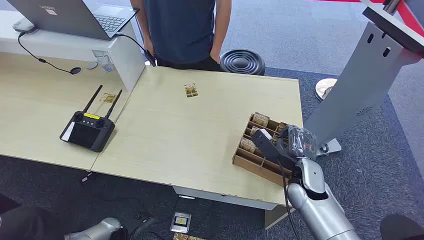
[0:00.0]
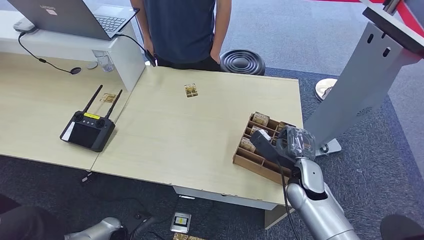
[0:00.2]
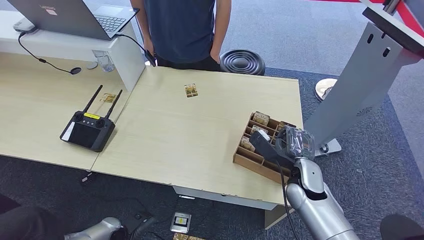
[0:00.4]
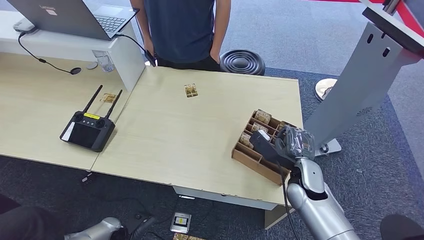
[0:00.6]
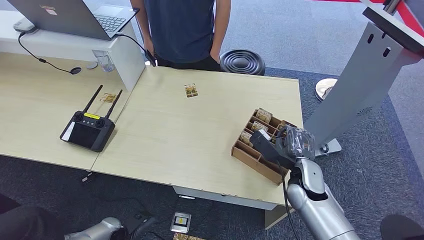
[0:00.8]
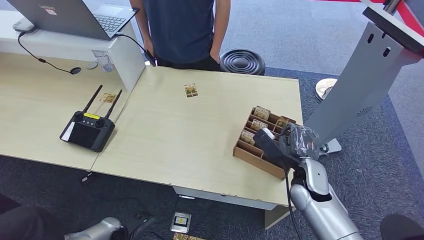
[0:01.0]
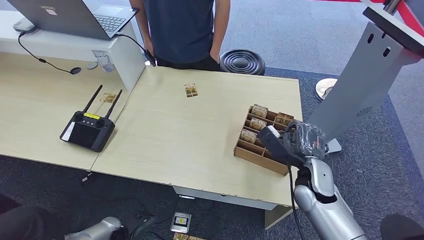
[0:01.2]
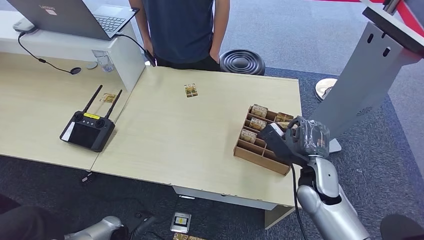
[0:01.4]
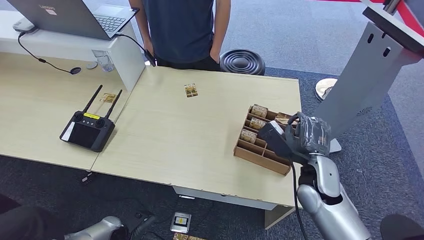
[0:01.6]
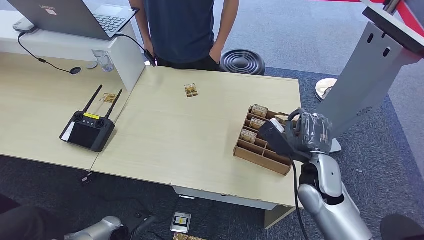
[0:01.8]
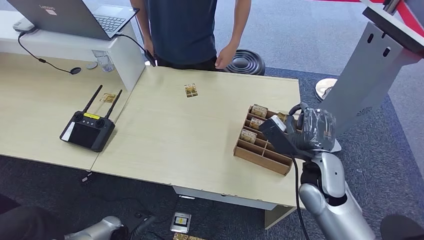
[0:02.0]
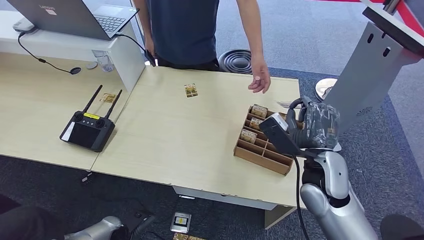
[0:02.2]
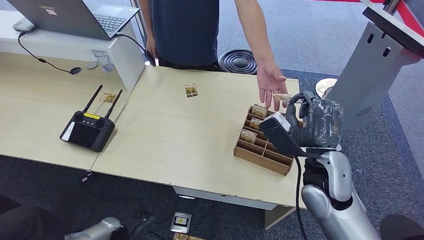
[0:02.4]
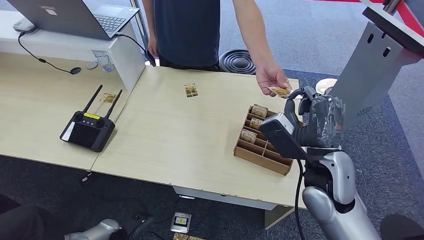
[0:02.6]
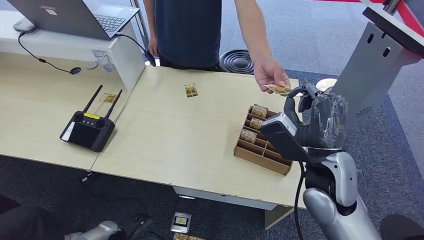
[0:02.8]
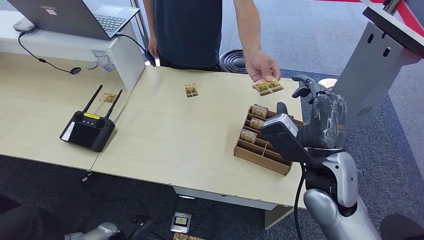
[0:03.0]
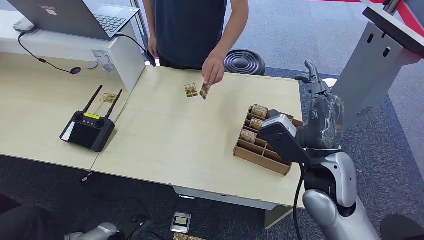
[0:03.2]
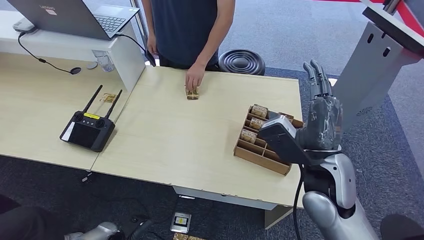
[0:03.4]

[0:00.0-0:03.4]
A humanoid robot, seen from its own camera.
Step, 0:00.0 to 0:01.8: Pick up the key card from the card box.
Step, 0:02.0 to 0:03.4: Hand the key card to the target.
0:01.6 to 0:03.4: The right hand heads upward, covering about 10 cm.

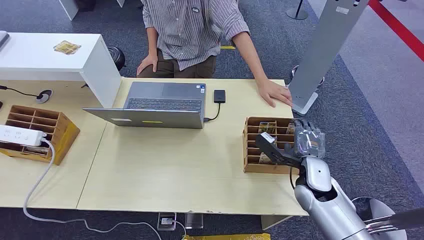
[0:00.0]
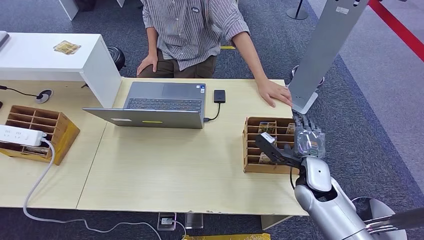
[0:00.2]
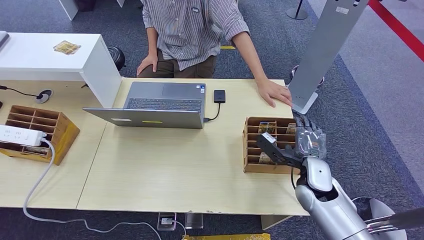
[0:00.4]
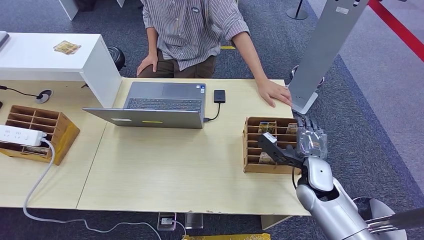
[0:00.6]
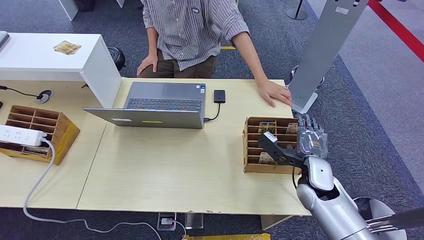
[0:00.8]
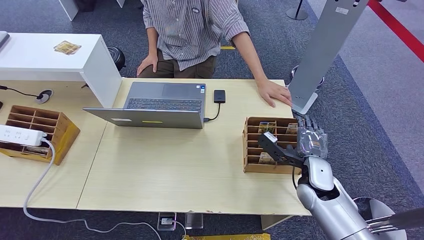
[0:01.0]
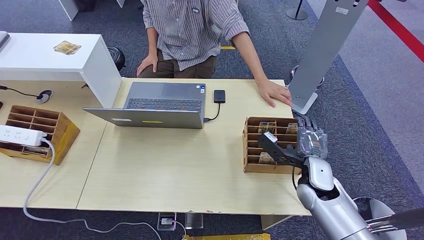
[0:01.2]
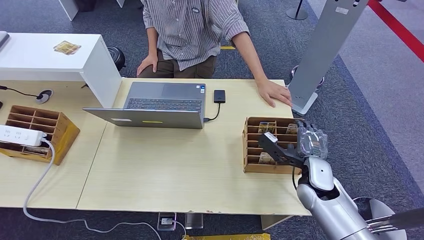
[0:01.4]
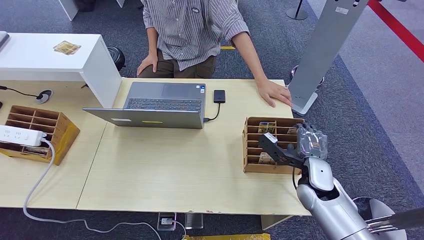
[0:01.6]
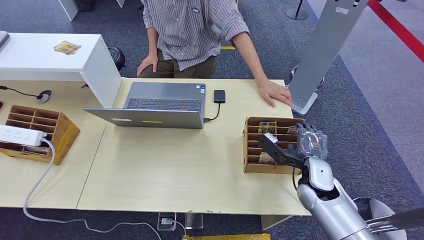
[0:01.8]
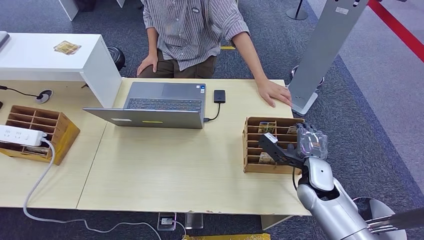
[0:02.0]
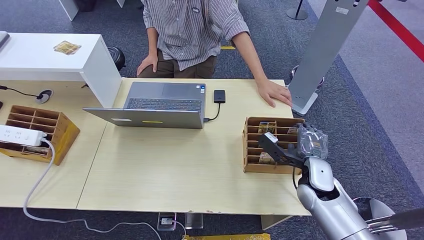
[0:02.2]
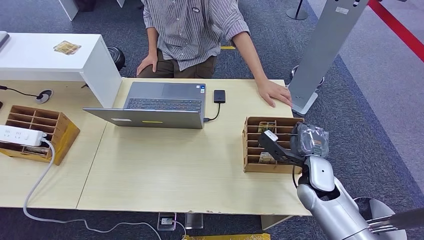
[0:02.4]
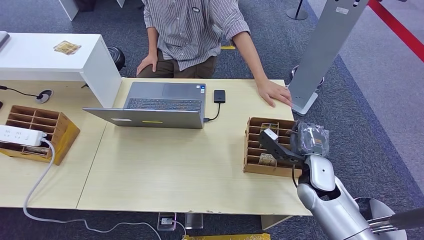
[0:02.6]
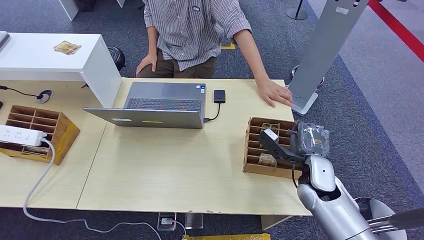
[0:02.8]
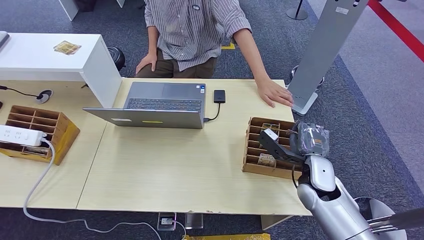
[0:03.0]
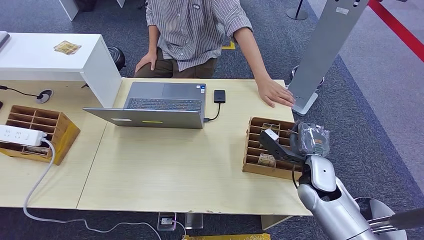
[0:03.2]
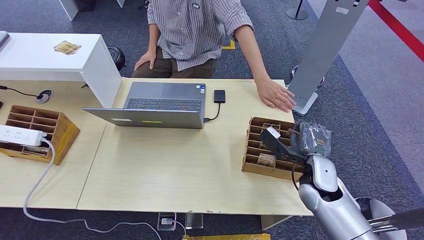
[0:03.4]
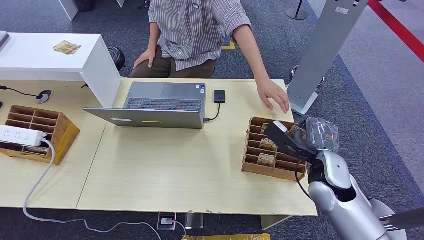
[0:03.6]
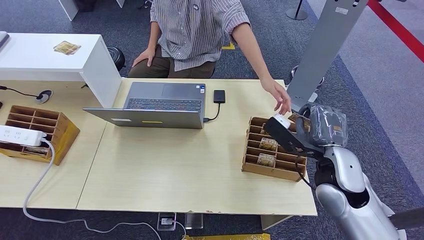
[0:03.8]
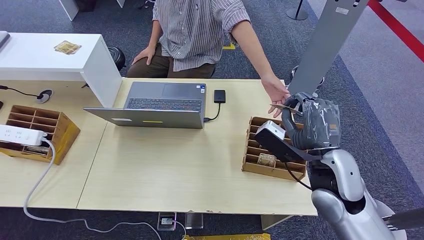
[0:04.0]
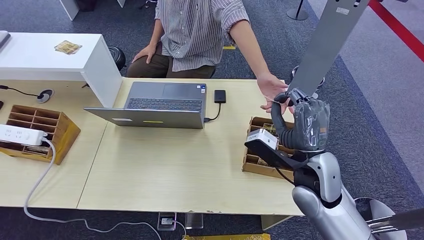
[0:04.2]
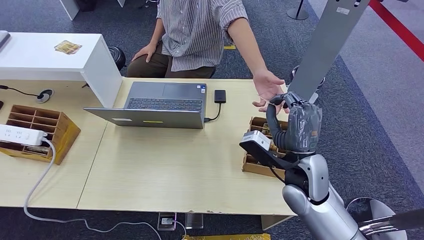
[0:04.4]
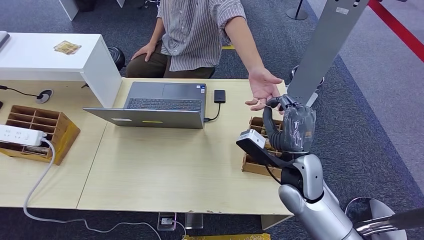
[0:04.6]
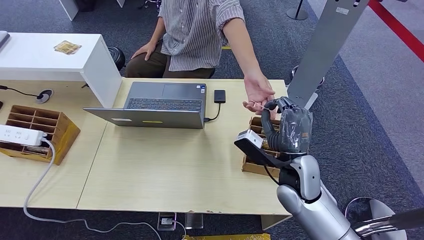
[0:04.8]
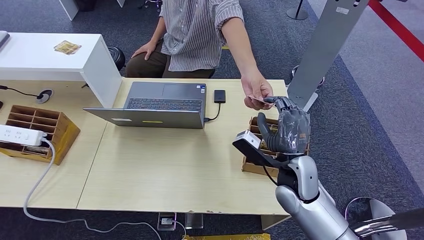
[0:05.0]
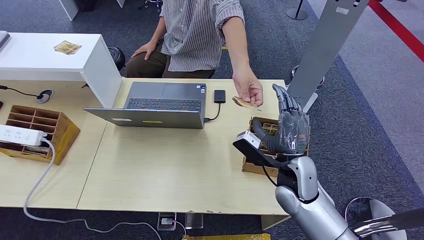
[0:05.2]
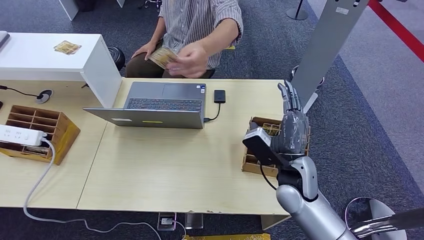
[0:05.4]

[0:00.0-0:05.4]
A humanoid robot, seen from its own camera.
Step, 0:00.0 to 0:03.6: Pick up the key card from the card box.
Step, 0:04.4 to 0:05.4: Hand the key card to the target.
0:01.4 to 0:02.8: The hands make only small movements.
0:02.8 to 0:04.0: The right hand heads upward, covering approximately 10 cm.
0:04.0 to 0:05.4: The right hand heads downward, covering approximately 10 cm.
